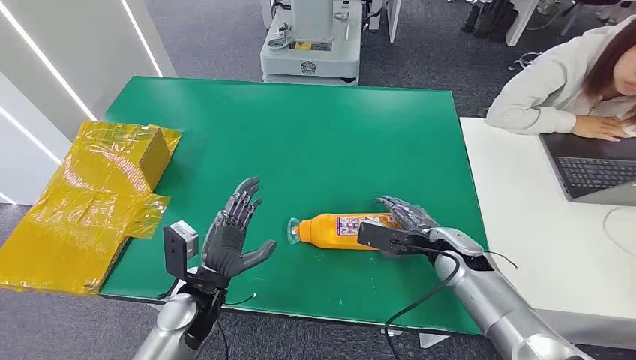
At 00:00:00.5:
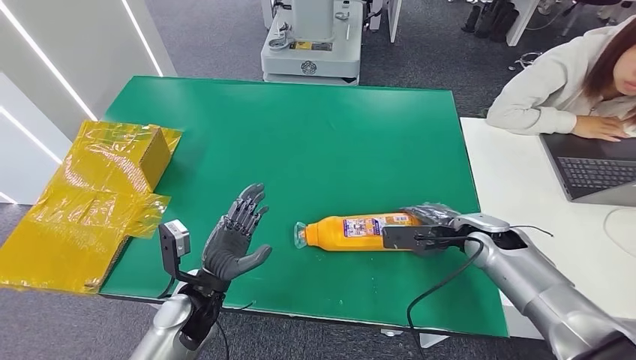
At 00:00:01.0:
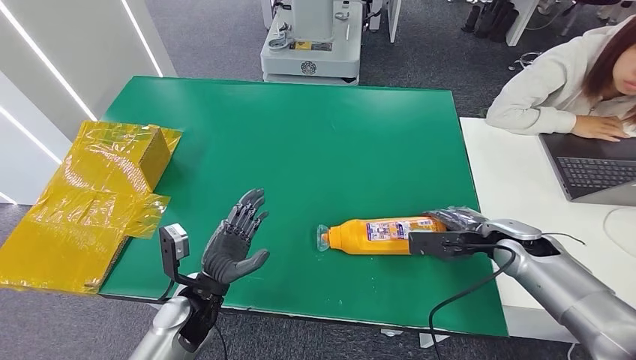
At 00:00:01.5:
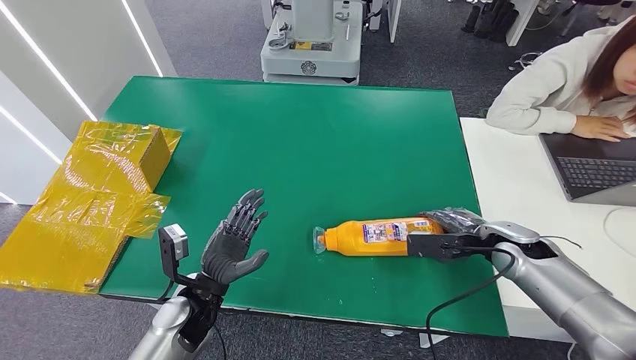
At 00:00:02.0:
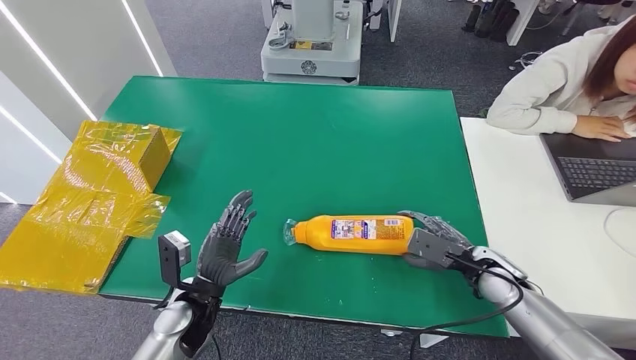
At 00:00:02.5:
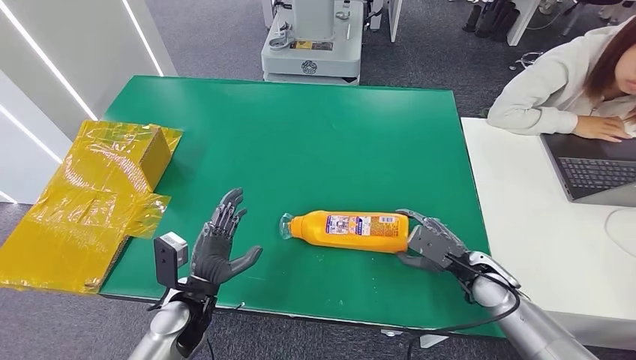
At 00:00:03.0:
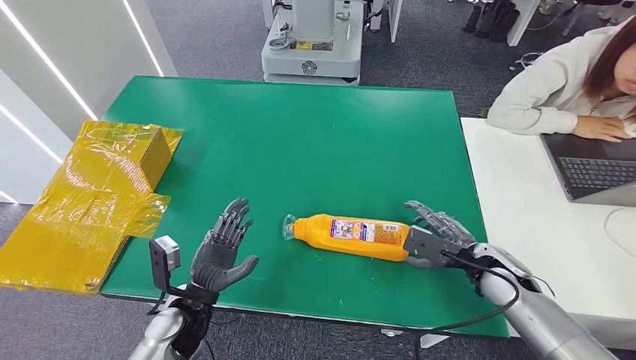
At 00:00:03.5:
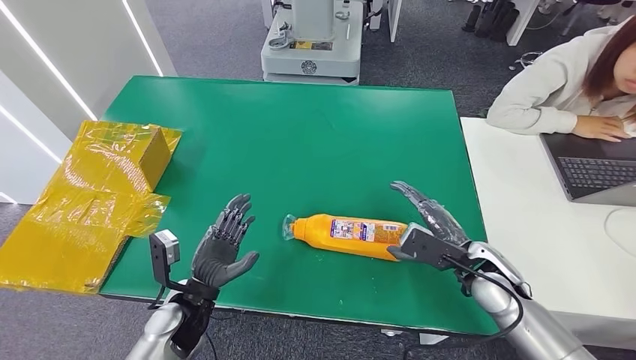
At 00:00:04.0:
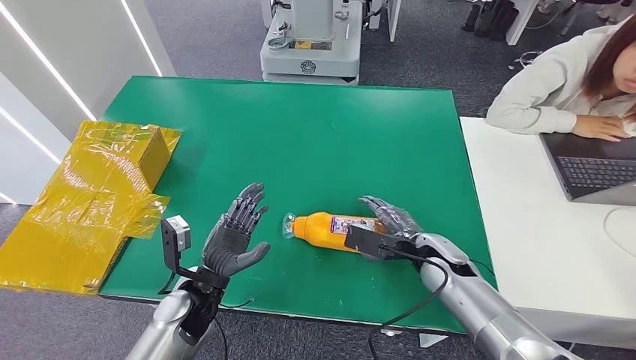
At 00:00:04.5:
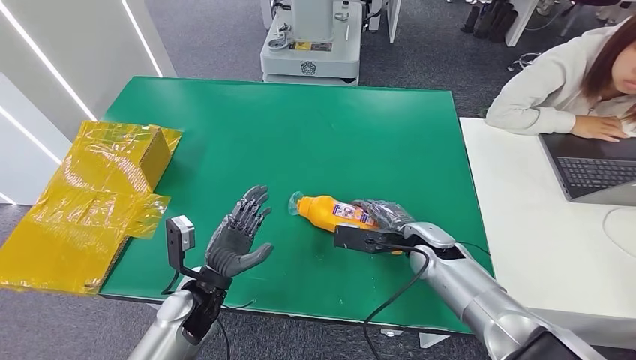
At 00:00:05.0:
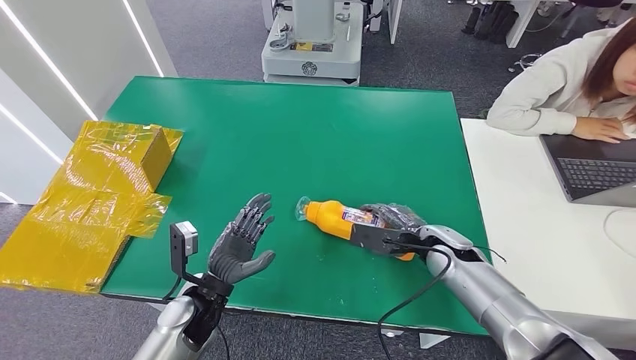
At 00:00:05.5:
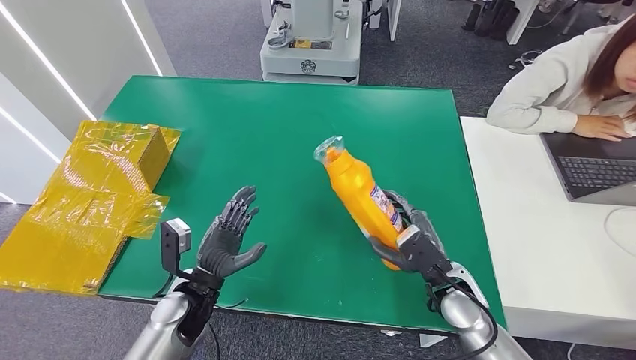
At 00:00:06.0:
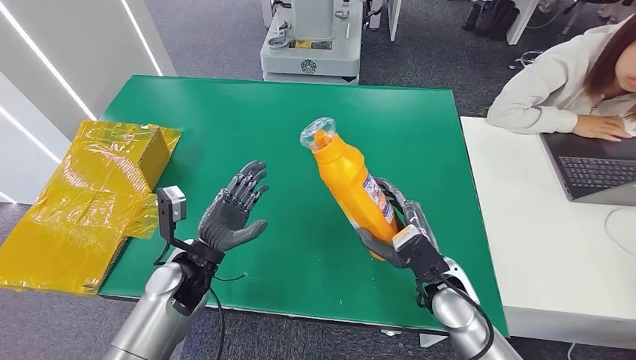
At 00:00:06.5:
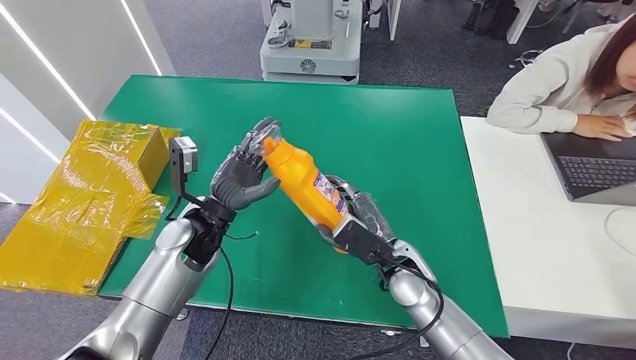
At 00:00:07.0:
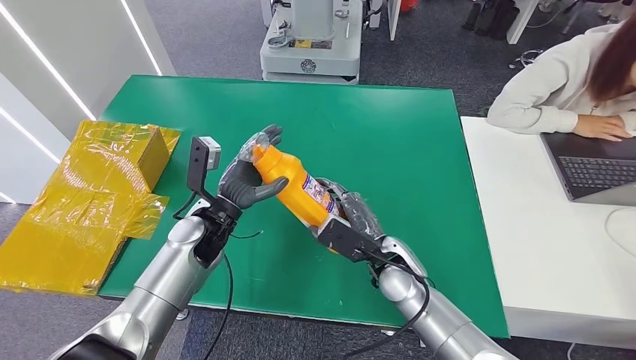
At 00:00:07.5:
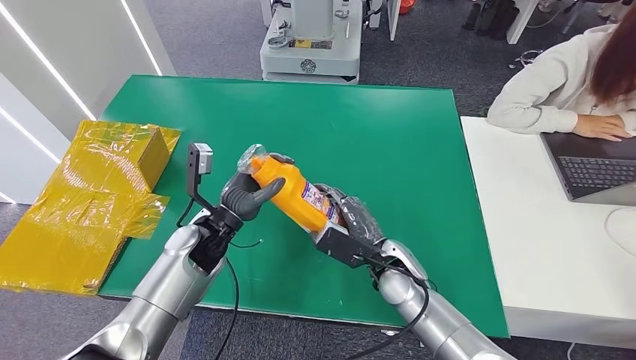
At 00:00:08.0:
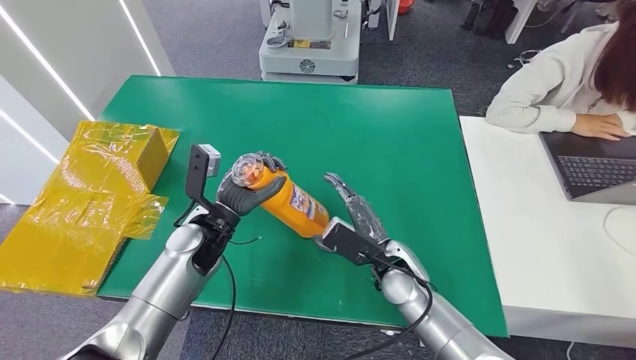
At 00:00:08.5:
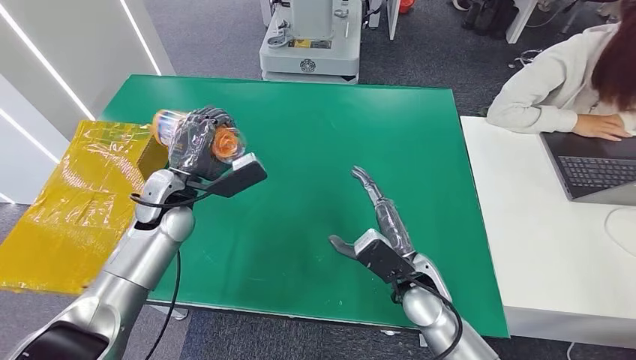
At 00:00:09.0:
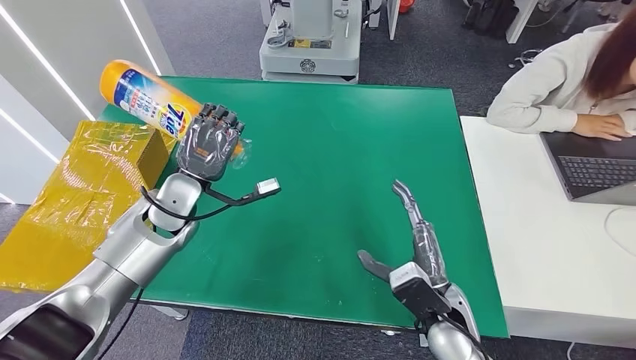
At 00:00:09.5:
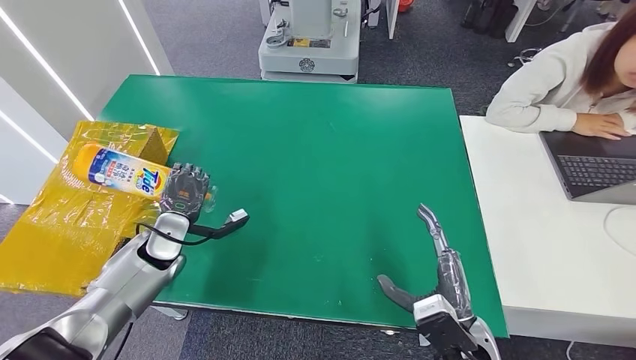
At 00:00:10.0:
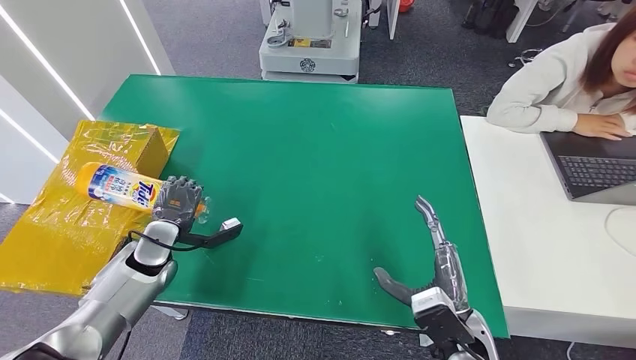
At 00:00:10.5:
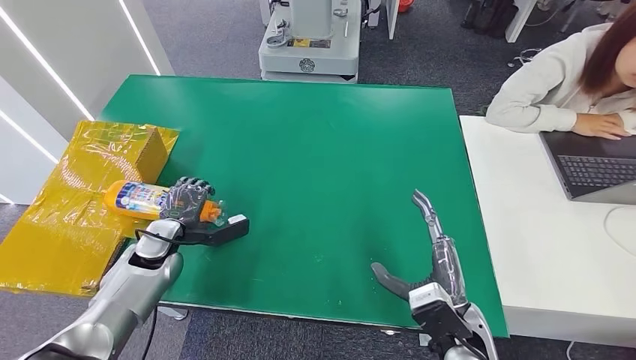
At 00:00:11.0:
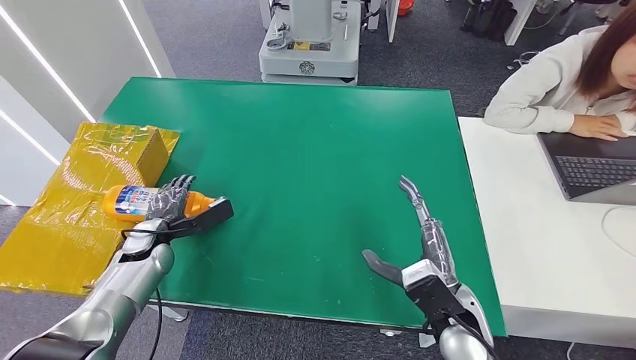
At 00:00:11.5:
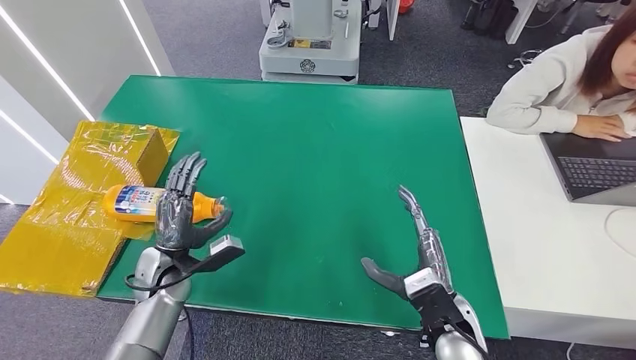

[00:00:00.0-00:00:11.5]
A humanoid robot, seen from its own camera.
Step, 00:00:00.0 to 00:00:05.5: Pick up the bottle from the table.
Step, 00:00:06.5 to 00:00:11.5: Turn the bottle to the front side.
00:00:02.0 to 00:00:04.0: The right hand shifts about 10 cm to the left.
00:00:04.0 to 00:00:06.0: The left hand changes place by some 5 cm; the right hand goes about 5 cm backward.
00:00:06.0 to 00:00:07.5: The left hand goes about 5 cm forward. The right hand goes approximately 10 cm to the left.
00:00:09.5 to 00:00:11.5: The left hand goes approximately 5 cm backward.
